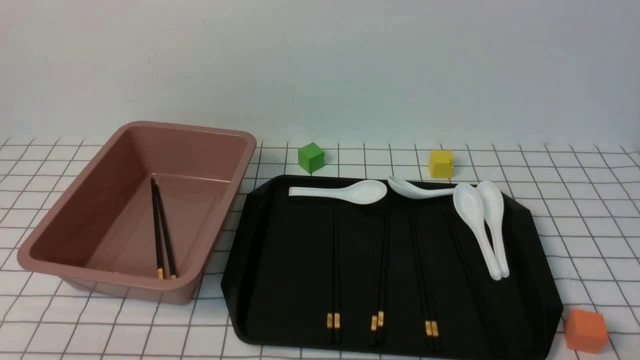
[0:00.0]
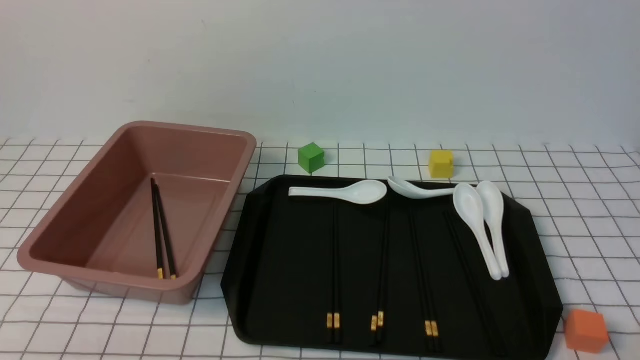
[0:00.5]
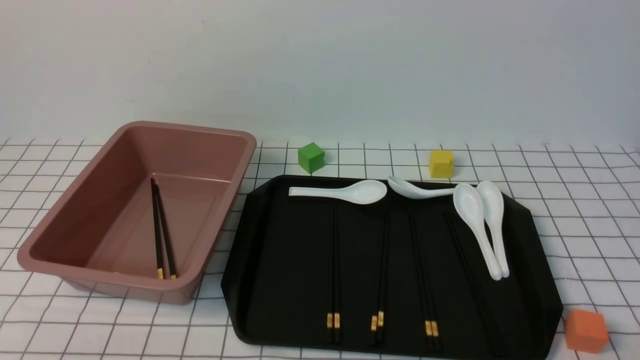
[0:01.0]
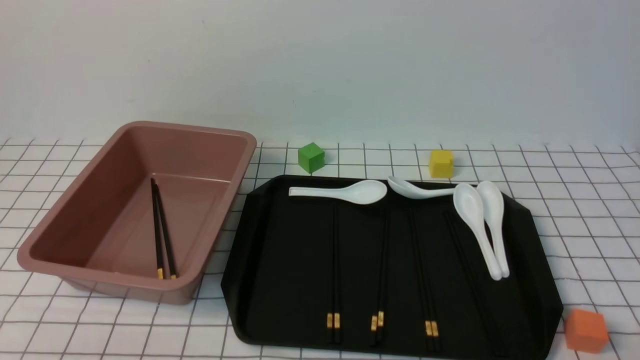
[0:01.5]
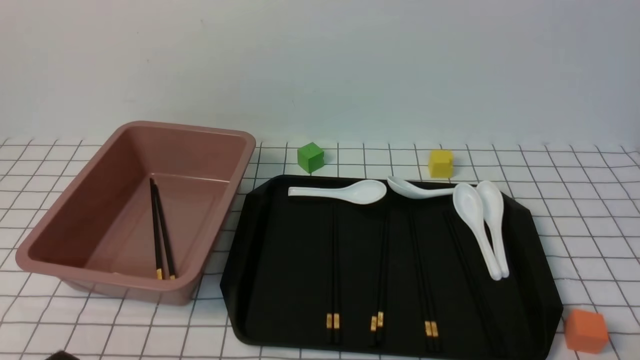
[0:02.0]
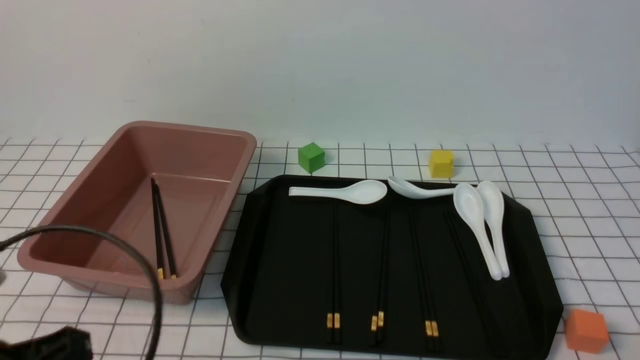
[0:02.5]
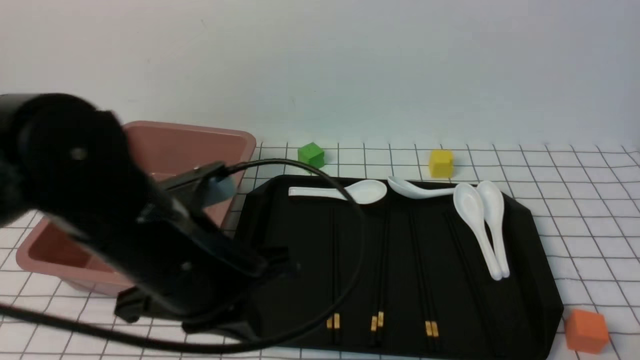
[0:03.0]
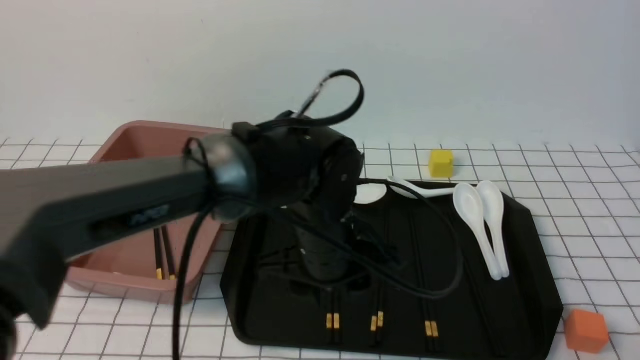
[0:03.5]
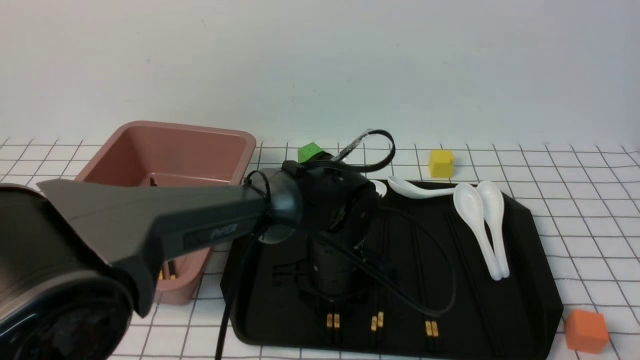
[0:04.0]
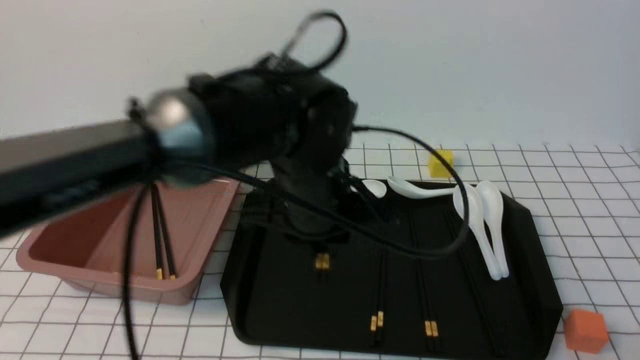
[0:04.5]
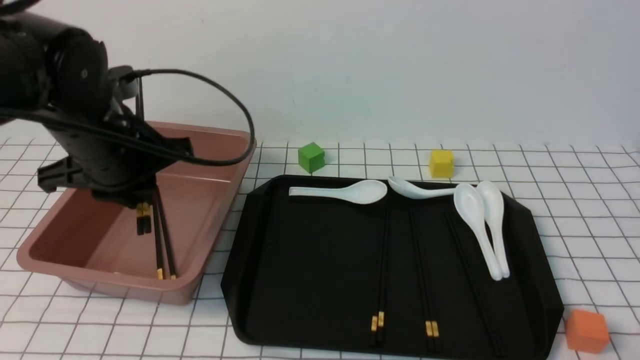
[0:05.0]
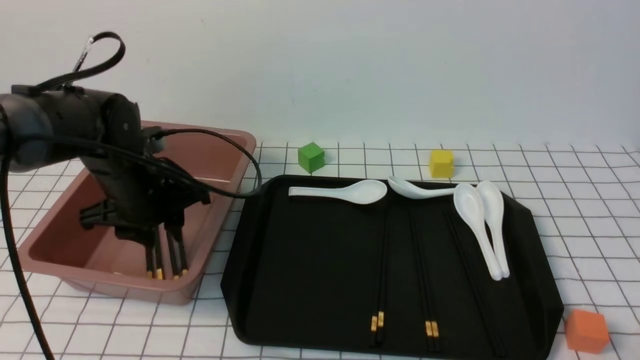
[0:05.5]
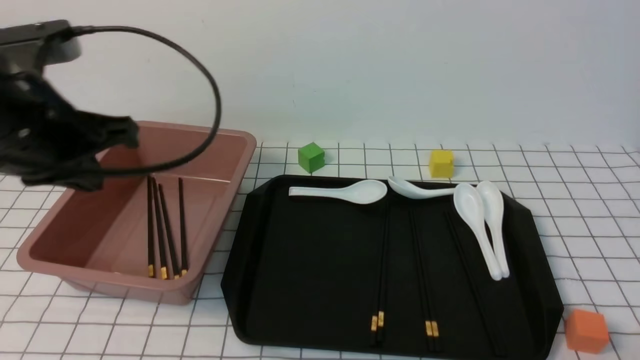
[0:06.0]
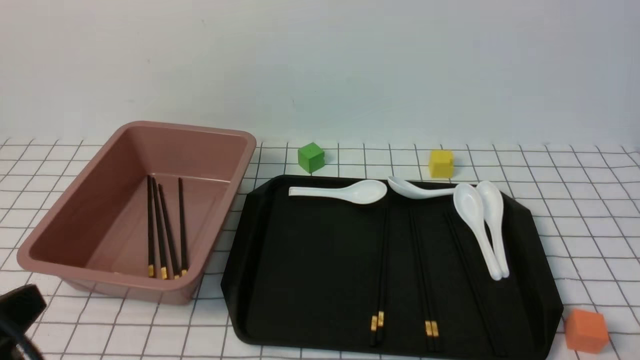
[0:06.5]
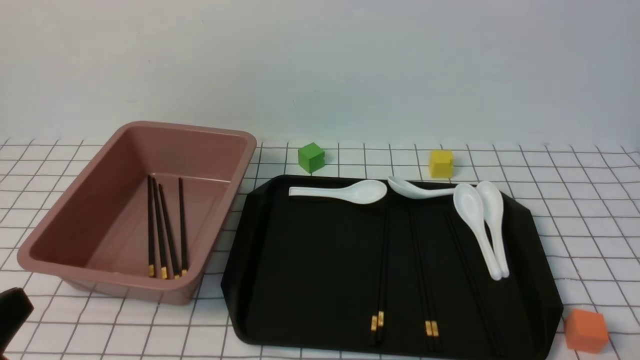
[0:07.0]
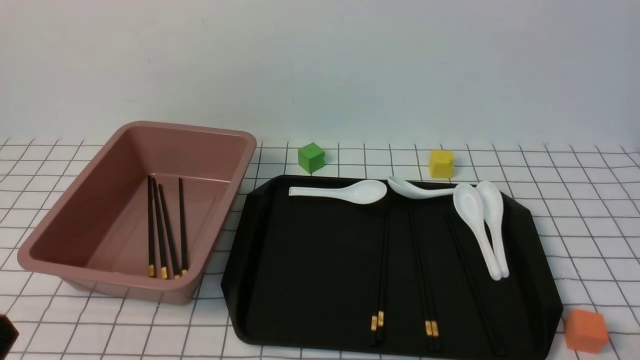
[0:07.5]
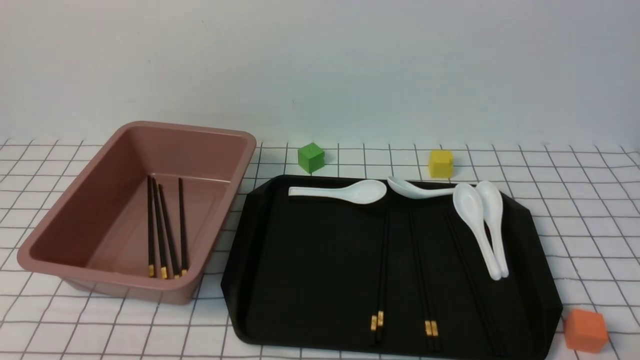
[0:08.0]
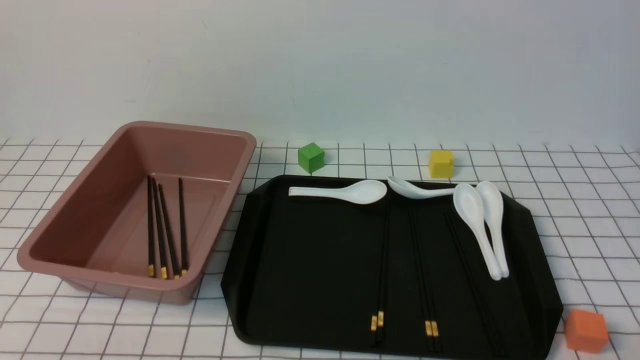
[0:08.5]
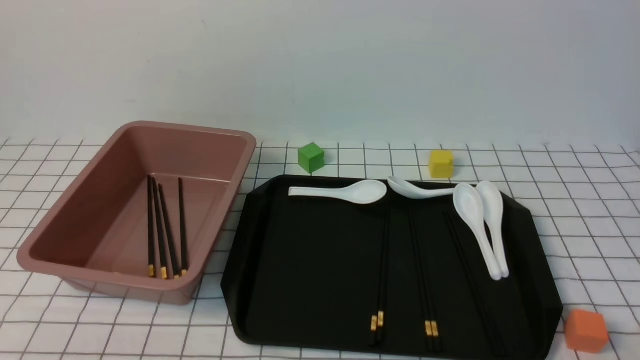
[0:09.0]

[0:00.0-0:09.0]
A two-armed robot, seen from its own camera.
Step, 0:00.0 to 0:04.5: use the left arm to grab a pair of chopsticks.
Step, 0:05.0 to 0:05.5: use the left arm to put the chopsticks into the lunch box.
0:02.0 to 0:04.5: The left gripper moves forward and to the right, some 35 cm, and opens, then closes once more.
0:04.5 to 0:07.0: The left gripper is displaced to the left and backward by roughly 35 cm, and closes up.
0:07.0 to 0:09.0: The left gripper moves downward, about 10 cm.
